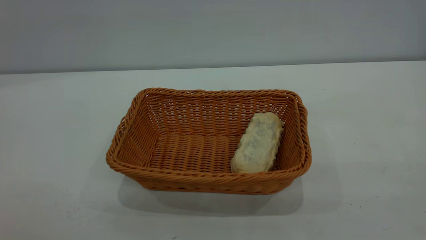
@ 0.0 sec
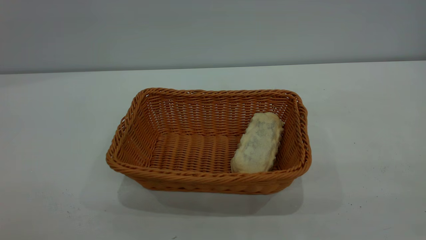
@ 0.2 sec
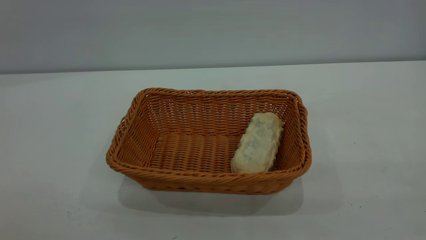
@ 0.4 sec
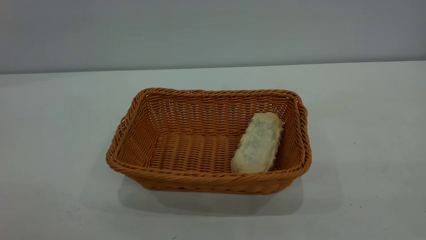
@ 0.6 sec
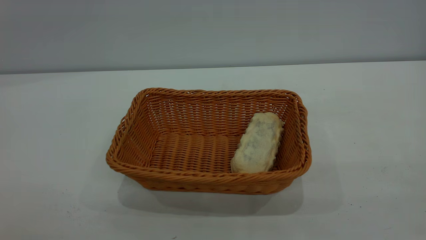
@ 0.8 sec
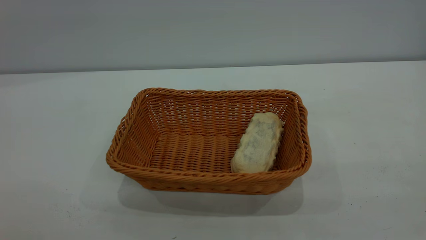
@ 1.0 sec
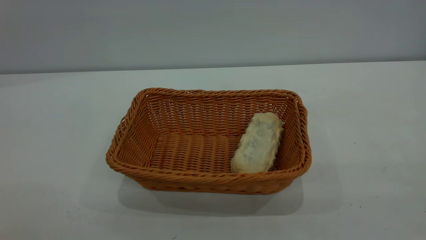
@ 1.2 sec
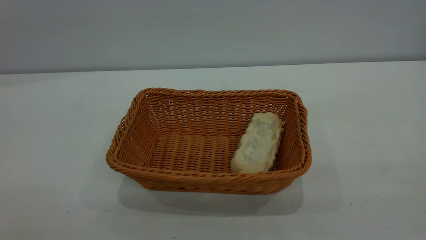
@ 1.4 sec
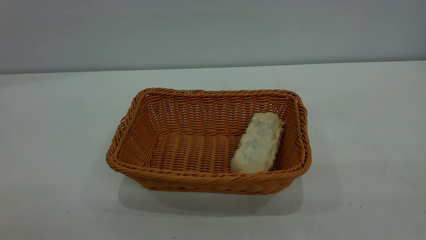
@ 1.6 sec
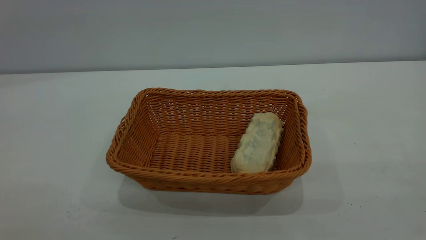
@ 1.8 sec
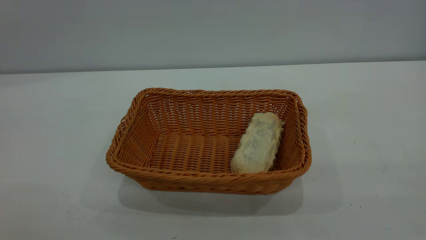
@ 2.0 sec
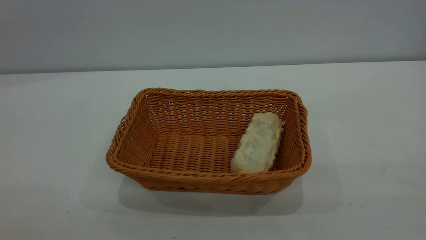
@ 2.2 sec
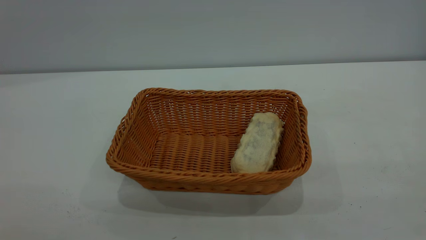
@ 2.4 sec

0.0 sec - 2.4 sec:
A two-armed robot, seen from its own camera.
Task of the whole recording: One hand grasps the yellow basket and places it in the middle of the table, while the other hand picks up the long bread and puts it into the yellow basket.
1.2 sec - 2.4 sec: The two grippers keep their place.
